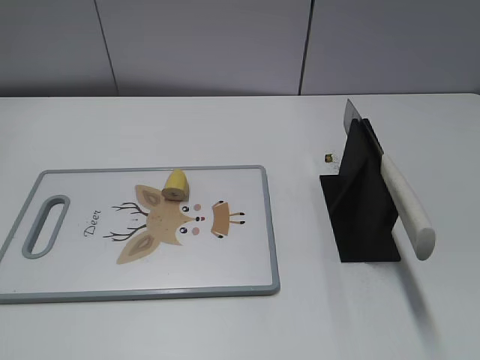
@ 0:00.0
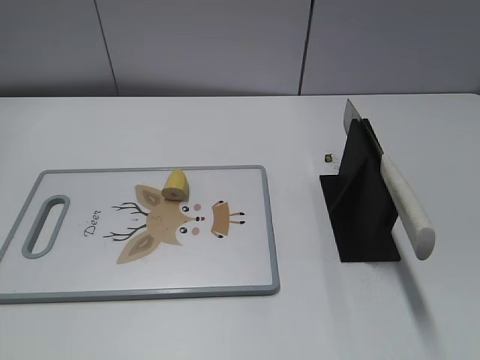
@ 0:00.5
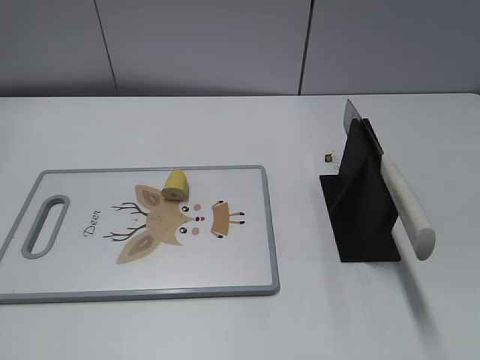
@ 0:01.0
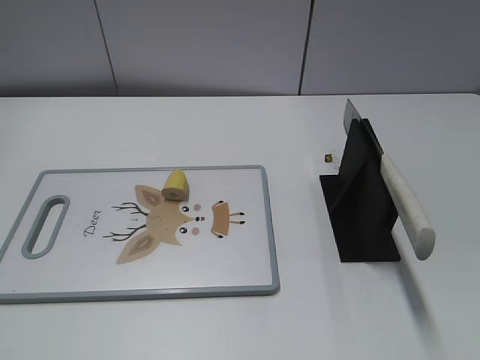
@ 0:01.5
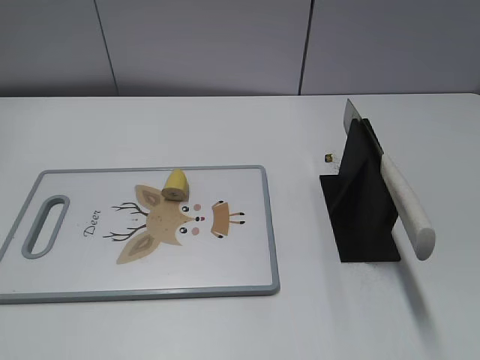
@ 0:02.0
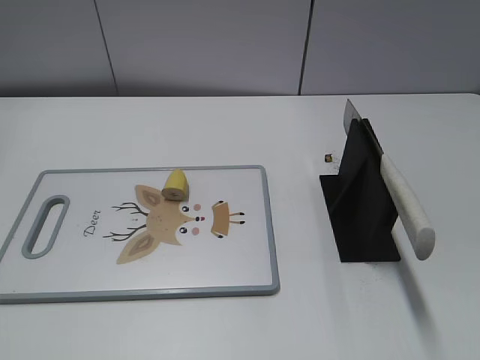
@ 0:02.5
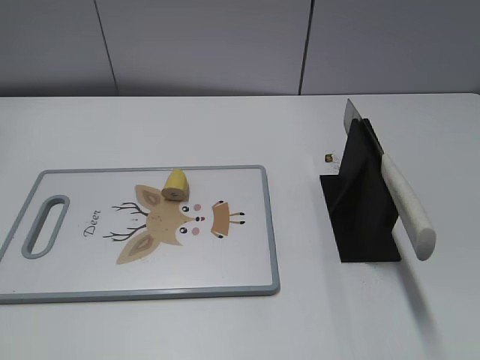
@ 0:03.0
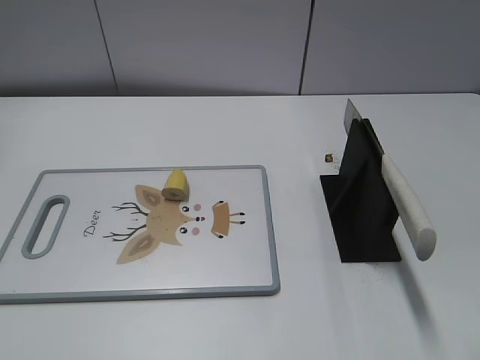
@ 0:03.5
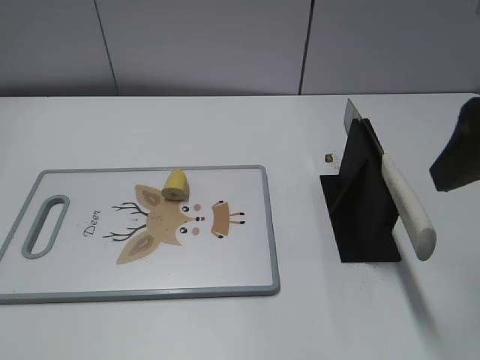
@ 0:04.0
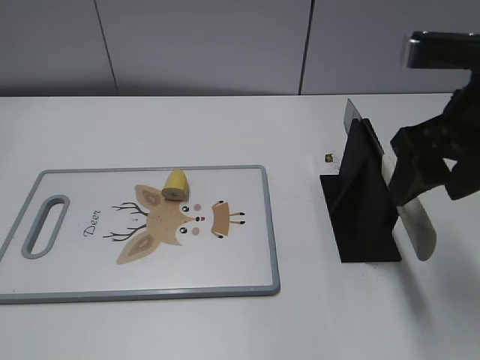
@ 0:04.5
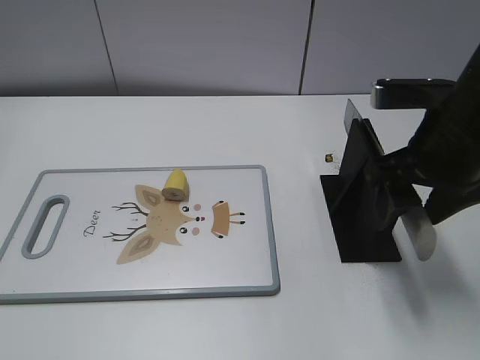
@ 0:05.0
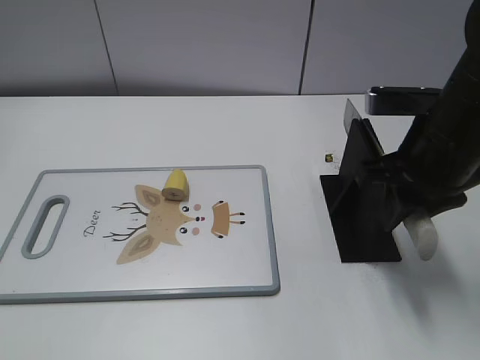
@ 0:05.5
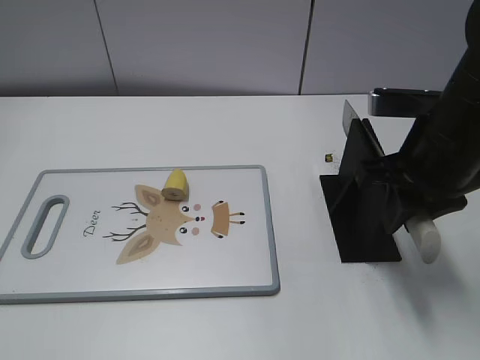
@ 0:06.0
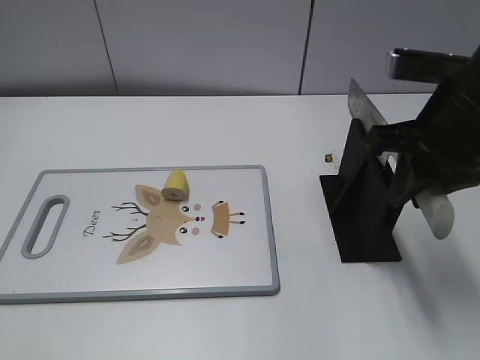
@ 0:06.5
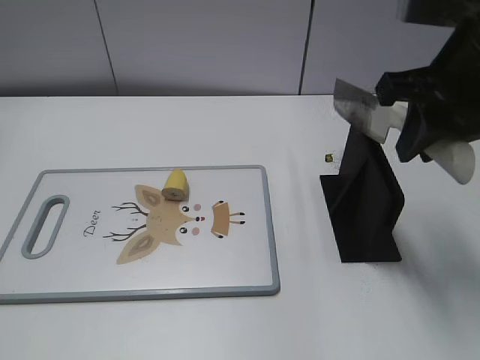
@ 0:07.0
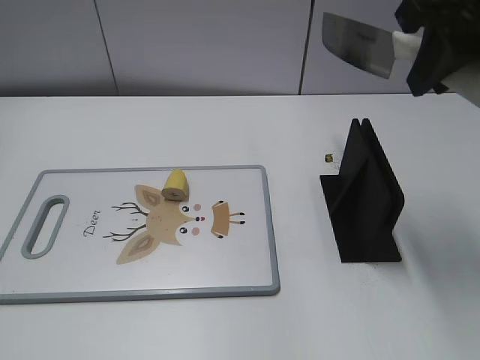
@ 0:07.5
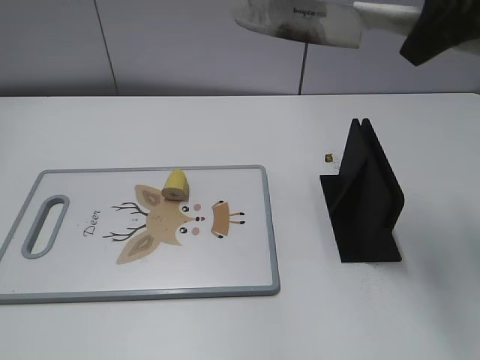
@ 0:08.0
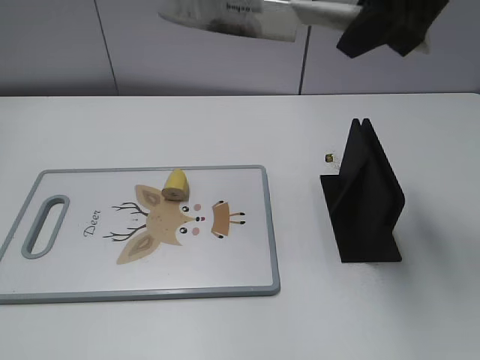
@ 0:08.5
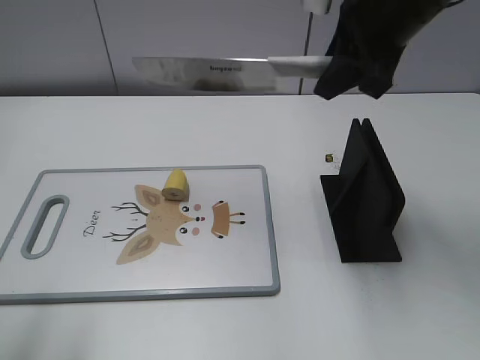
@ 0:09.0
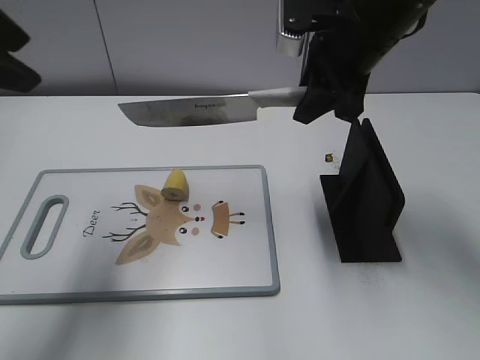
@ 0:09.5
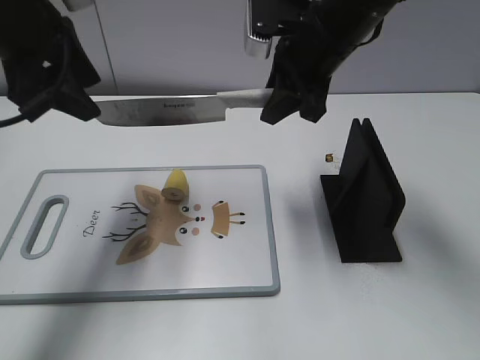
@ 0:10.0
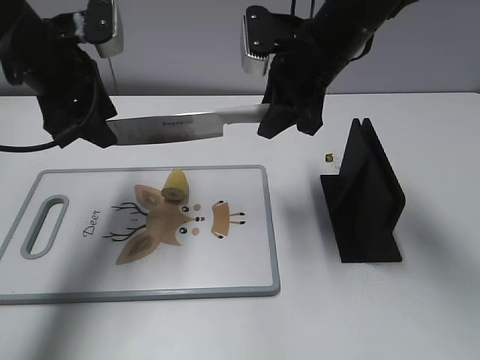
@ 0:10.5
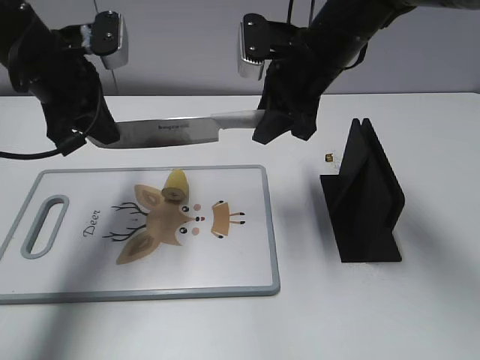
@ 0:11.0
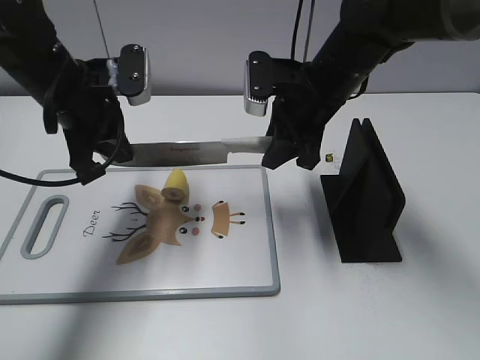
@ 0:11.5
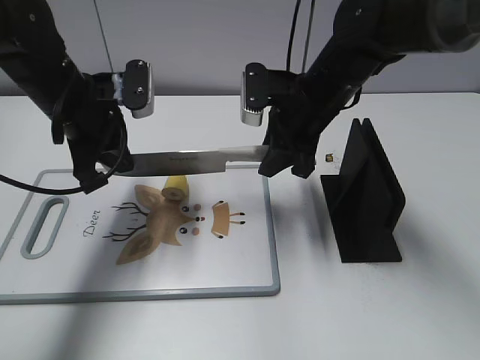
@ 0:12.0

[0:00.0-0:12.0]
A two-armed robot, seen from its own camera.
Task of the whole recording: cut banana.
Step, 0:00.0 to 0:07.0: Grab the knife handle with your right hand.
0:02.0 to 0:04.0: The right gripper travels forward by approximately 20 cm.
0:04.0 to 0:06.0: The right gripper shifts approximately 15 cm downward and forward, and closes its fingers.
0:06.0 to 0:08.0: The right gripper travels upward by some 15 cm.
0:08.0 to 0:10.0: The left gripper shifts roughly 35 cm forward. The right gripper travels downward, forward and to the left by about 20 cm.
0:10.0 to 0:12.0: Both grippers travel together downward, roughly 10 cm. The left gripper closes.

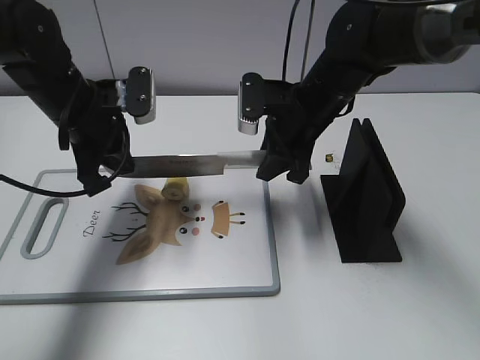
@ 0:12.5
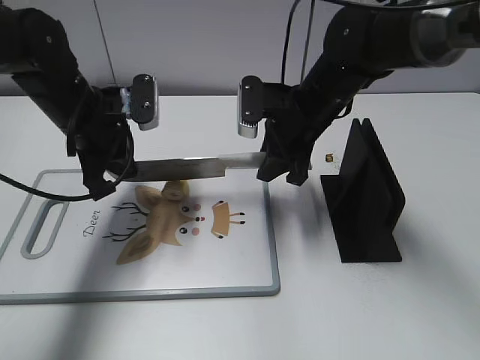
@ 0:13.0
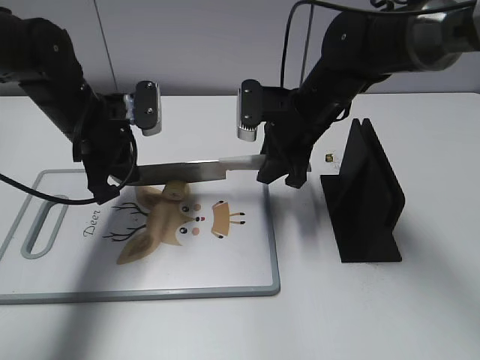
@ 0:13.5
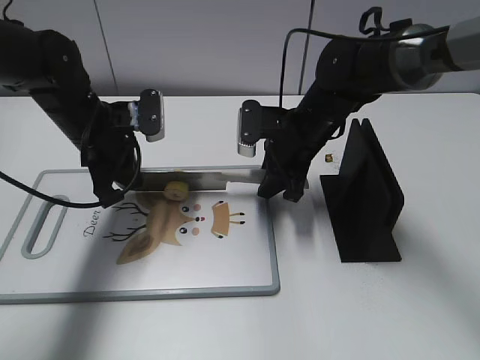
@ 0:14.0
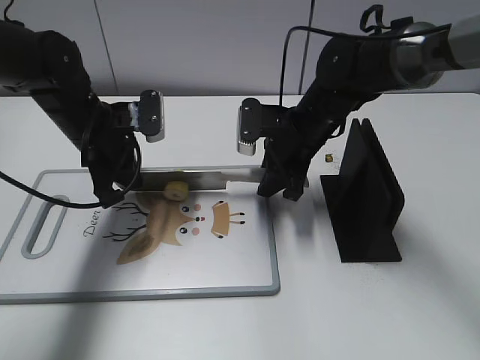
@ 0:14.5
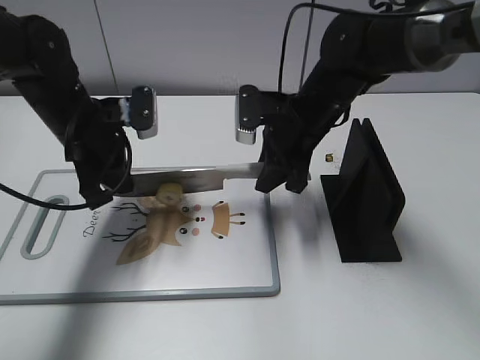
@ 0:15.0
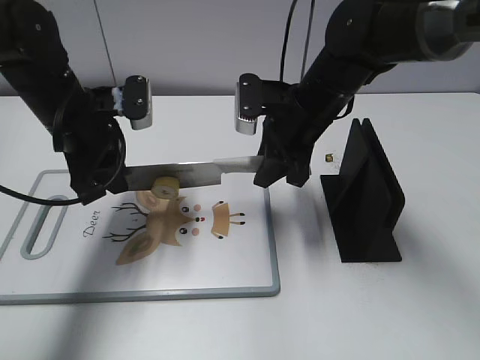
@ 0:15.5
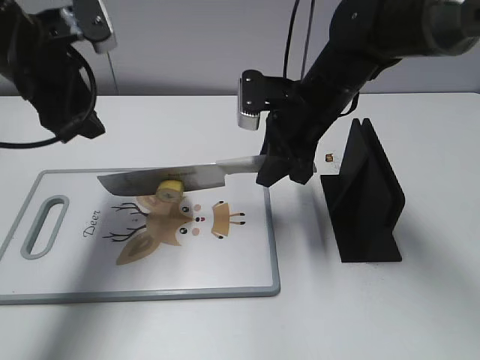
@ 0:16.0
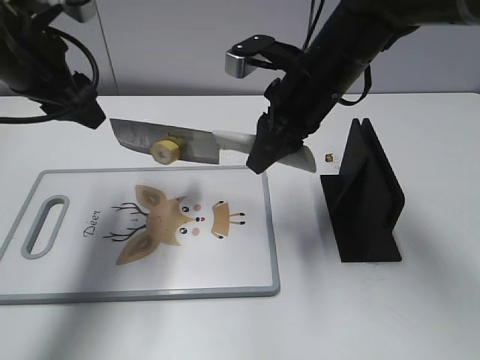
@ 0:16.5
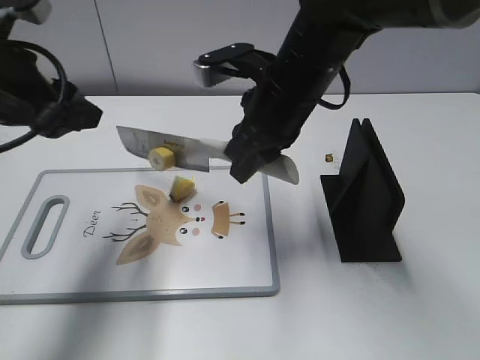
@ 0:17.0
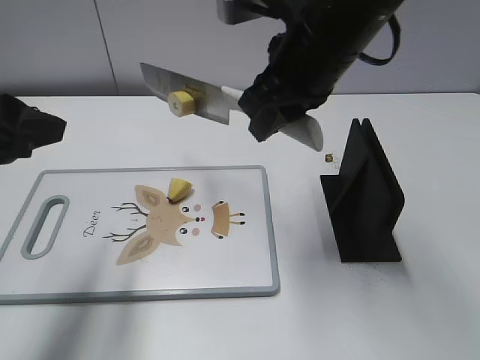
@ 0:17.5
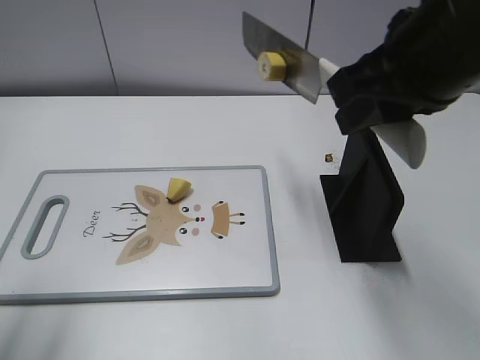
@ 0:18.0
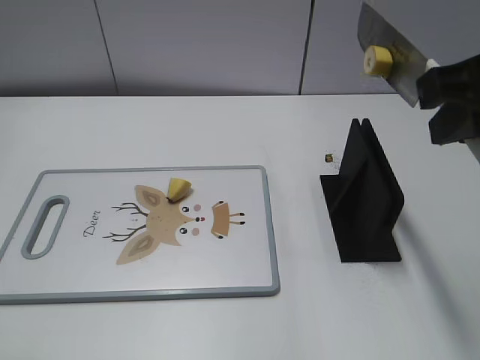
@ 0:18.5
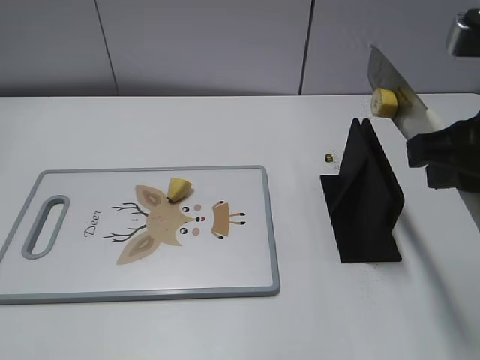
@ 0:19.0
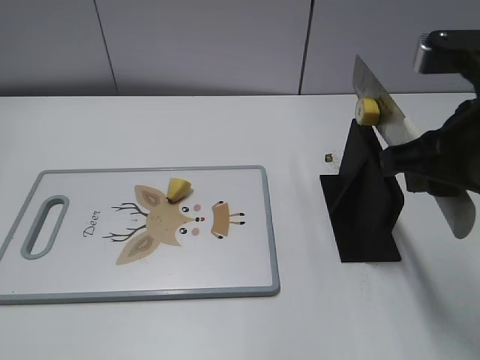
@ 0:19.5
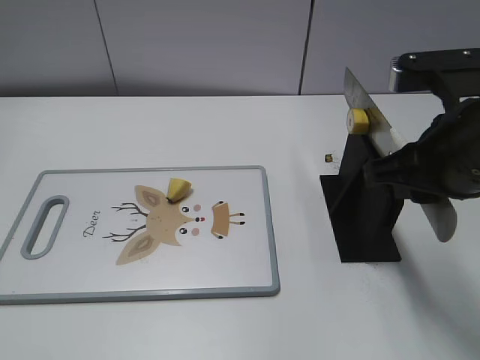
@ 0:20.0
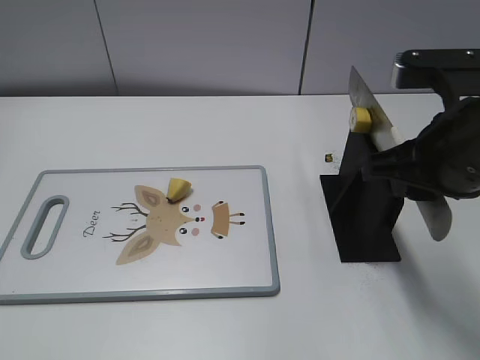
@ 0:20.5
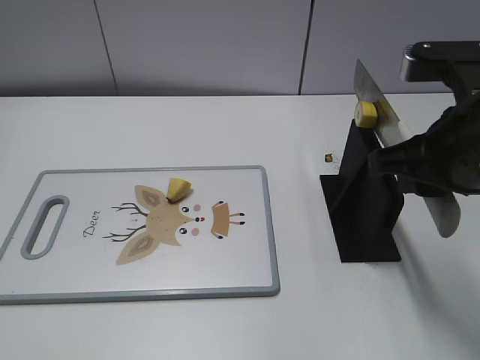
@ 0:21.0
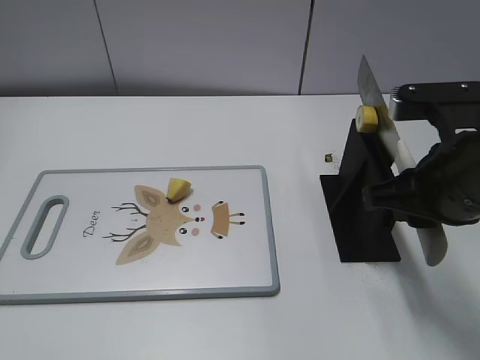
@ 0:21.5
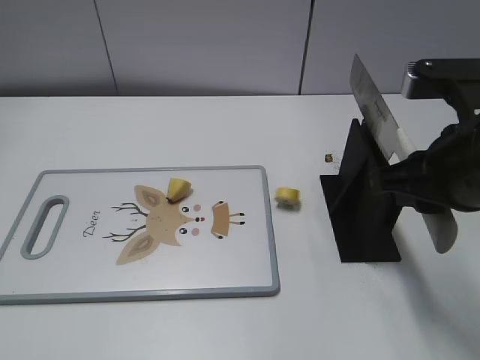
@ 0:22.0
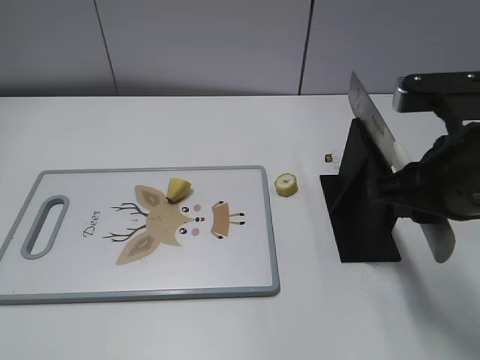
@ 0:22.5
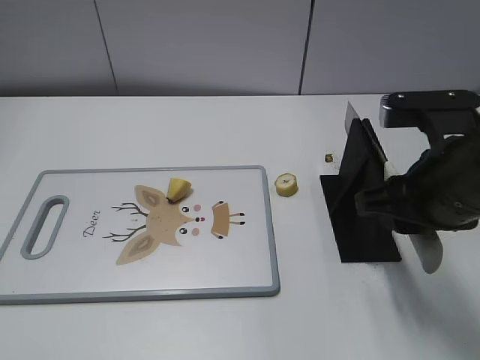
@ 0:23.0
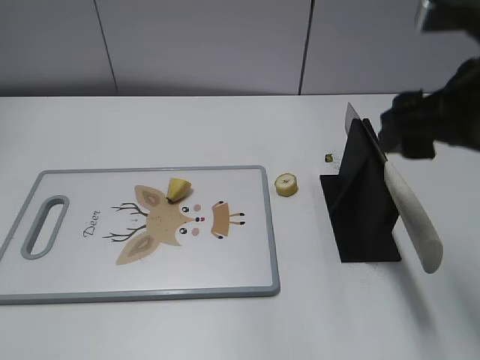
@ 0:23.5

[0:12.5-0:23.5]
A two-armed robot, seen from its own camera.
Task of the whole recording: cut banana.
Step, 0:14.5 to 0:18.0: Cut the banana with your right hand.
Step, 0:18.5 to 0:19.5: Lift the knife with your right hand.
0:12.5 to 0:14.5: The grippers make only small movements.
0:14.5 to 0:16.0: The left gripper is displaced upward by some 15 cm, and opens up; the right gripper travels upward by approximately 5 cm.
0:16.0 to 0:18.0: The right gripper is displaced upward and backward by about 20 cm. Meanwhile the left gripper is displaced backward and to the left by roughly 20 cm.
0:18.0 to 0:20.0: The right gripper goes about 10 cm downward. The left gripper moves backward, about 15 cm.
0:20.0 to 0:21.5: There are only small adjustments of the grippers.
0:21.5 to 0:23.5: The right gripper goes approximately 10 cm upward, and opens its fingers.
